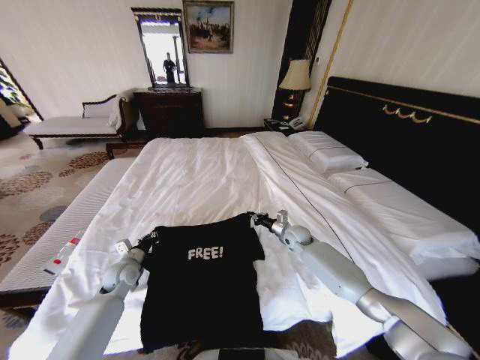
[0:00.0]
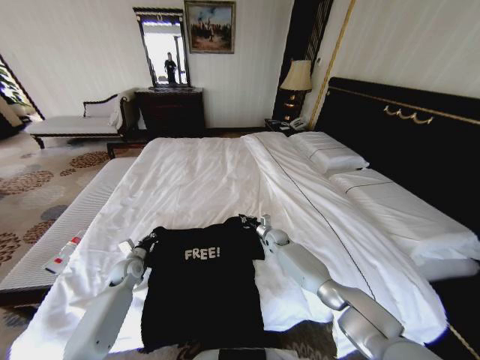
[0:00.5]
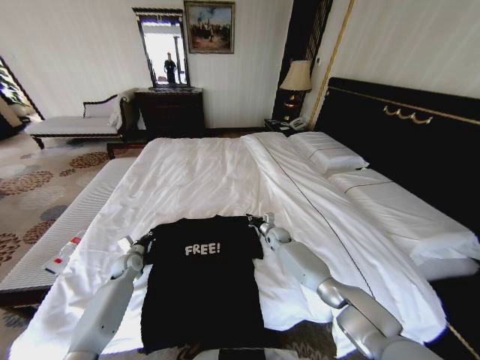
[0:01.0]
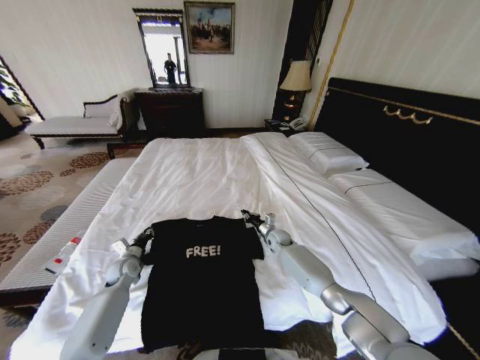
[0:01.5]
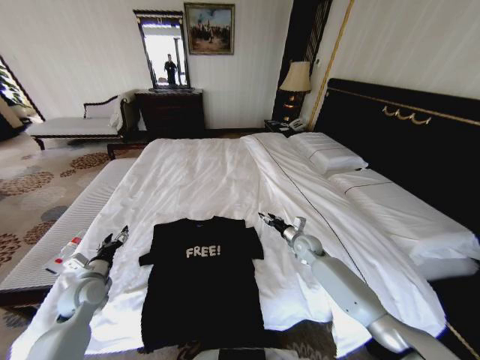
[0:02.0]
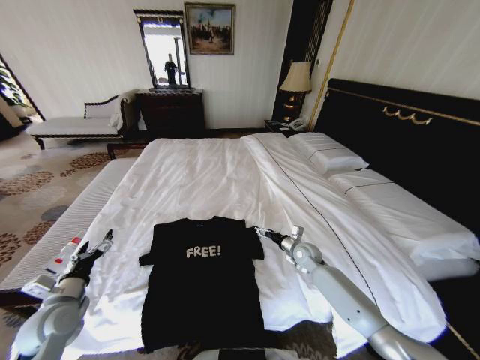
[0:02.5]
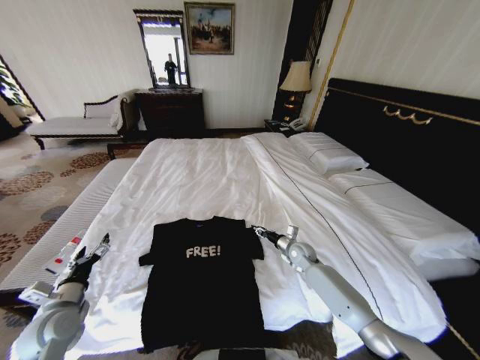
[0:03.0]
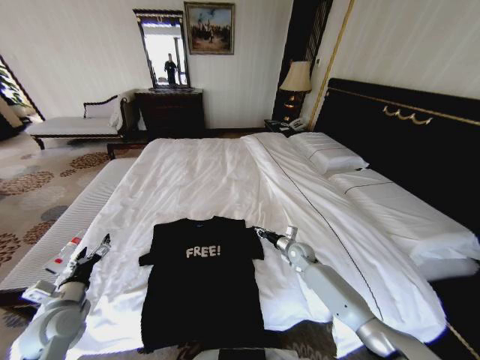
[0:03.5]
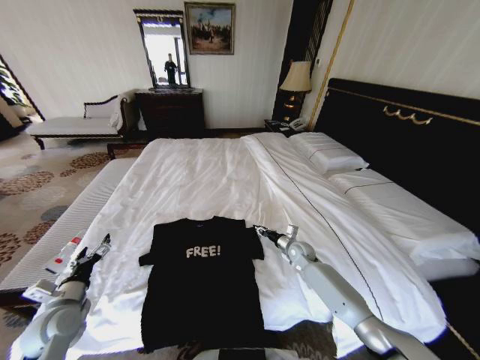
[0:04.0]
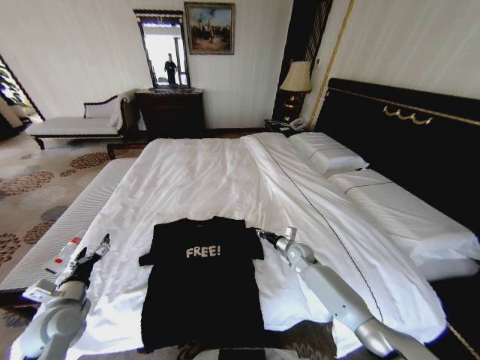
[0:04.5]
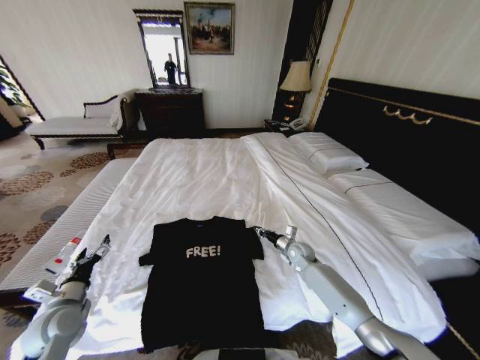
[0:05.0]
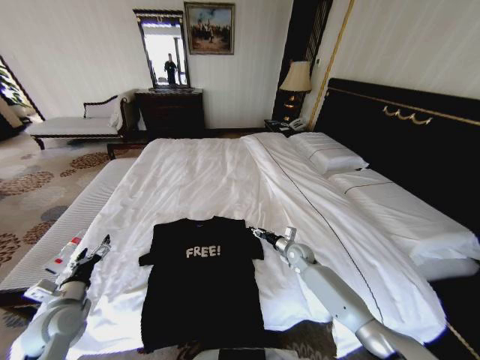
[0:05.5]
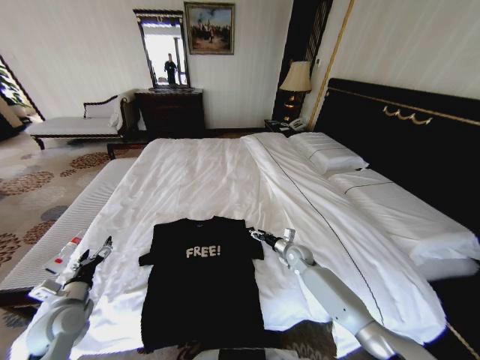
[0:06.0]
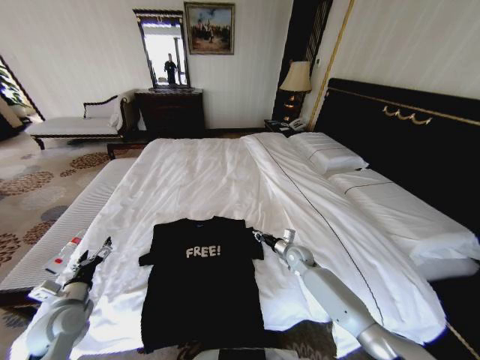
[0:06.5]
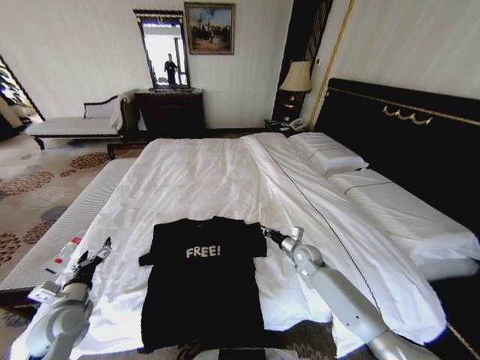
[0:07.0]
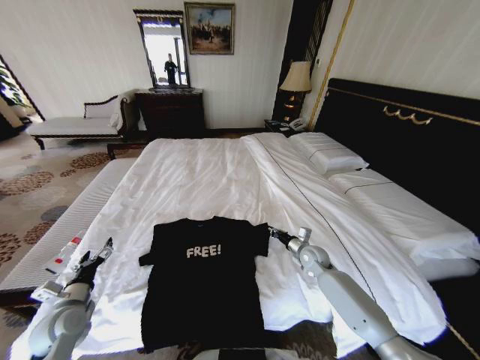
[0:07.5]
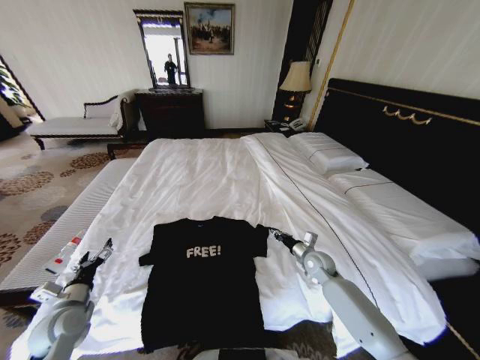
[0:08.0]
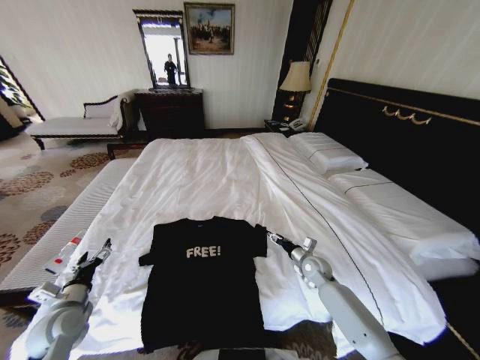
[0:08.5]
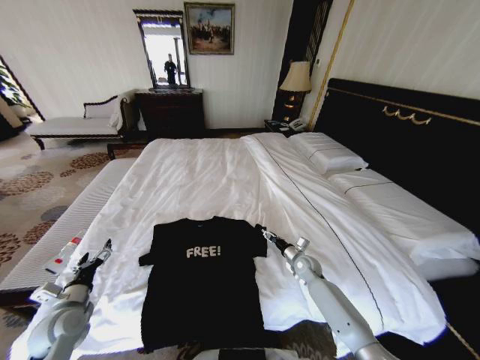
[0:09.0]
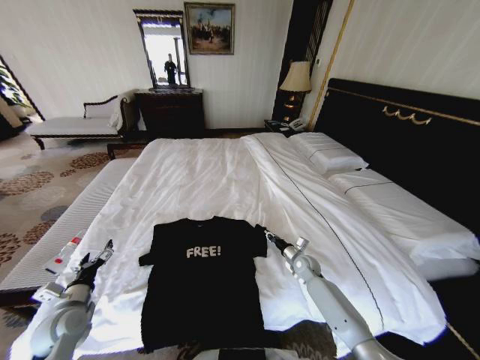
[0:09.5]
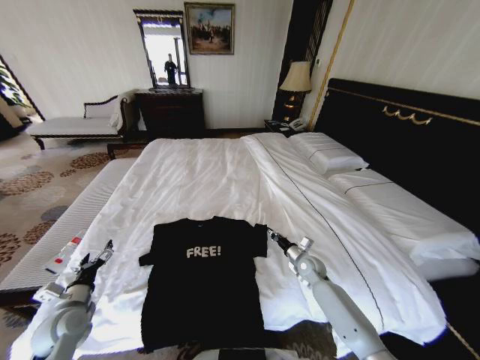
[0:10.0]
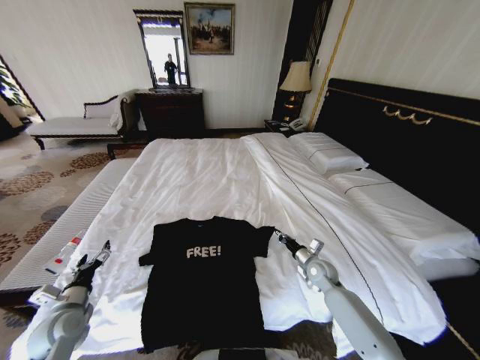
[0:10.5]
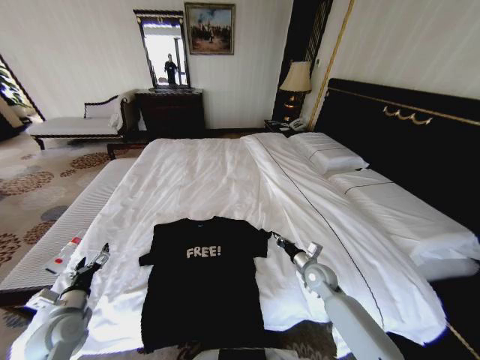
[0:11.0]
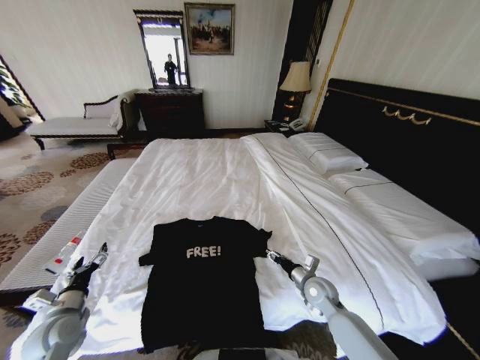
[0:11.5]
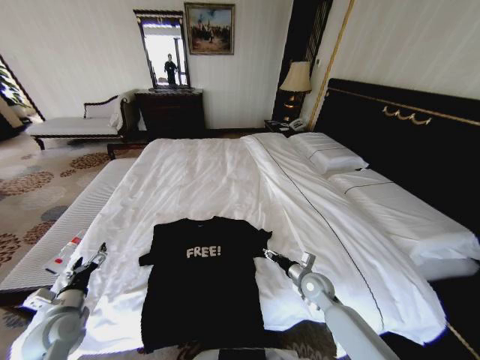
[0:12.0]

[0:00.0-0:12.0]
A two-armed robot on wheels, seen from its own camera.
Task of the whole recording: Fold the clothes on the bed.
0:00.0 to 0:02.0: The left gripper heads backward and to the left, covering about 10 cm, and opens; the right gripper travels to the left and back again, about 5 cm each way, and opens its fingers.
0:02.0 to 0:04.0: The left gripper goes roughly 5 cm backward. The right gripper opens and closes again.
0:04.0 to 0:06.0: The right gripper opens up.
0:06.0 to 0:08.0: The right gripper shifts by about 5 cm, and closes its fingers.
0:08.0 to 0:10.0: The right gripper opens and closes again.
0:10.0 to 0:12.0: The right gripper is displaced backward by approximately 10 cm, and opens up.

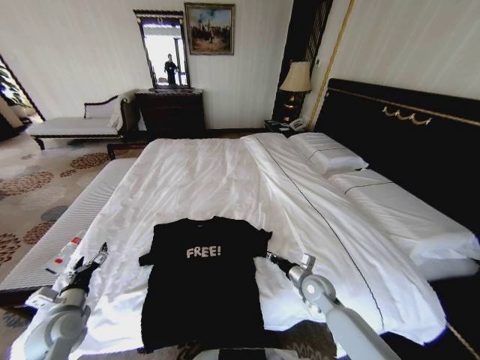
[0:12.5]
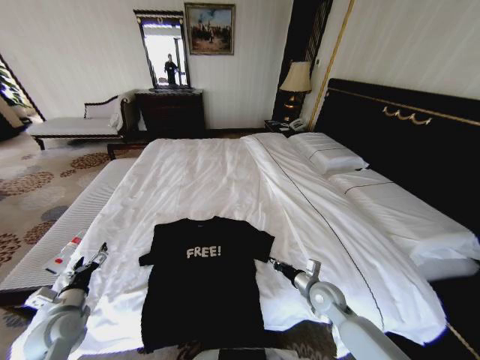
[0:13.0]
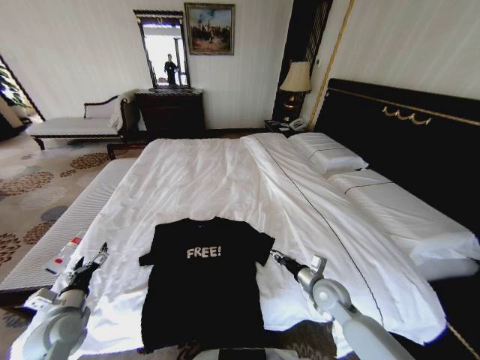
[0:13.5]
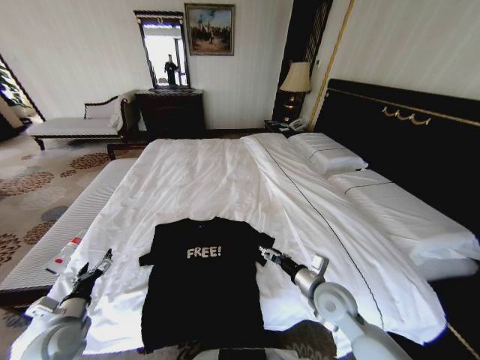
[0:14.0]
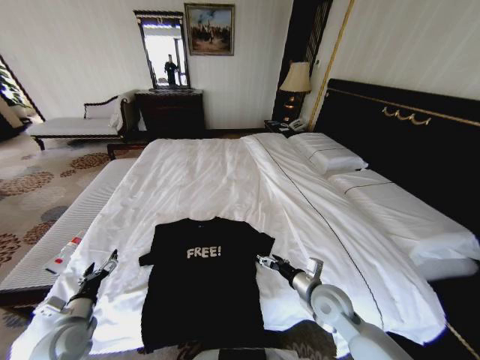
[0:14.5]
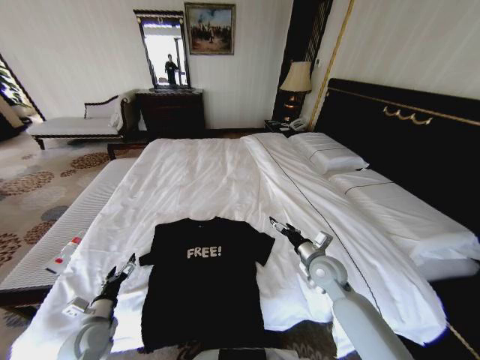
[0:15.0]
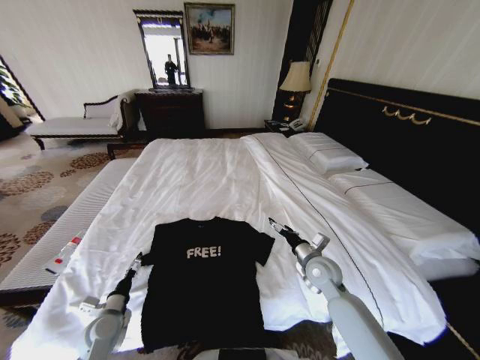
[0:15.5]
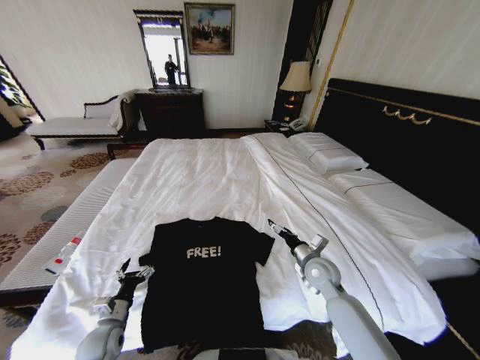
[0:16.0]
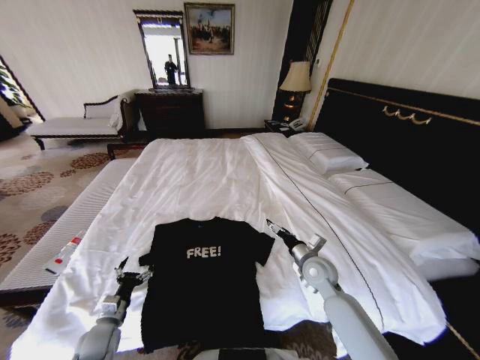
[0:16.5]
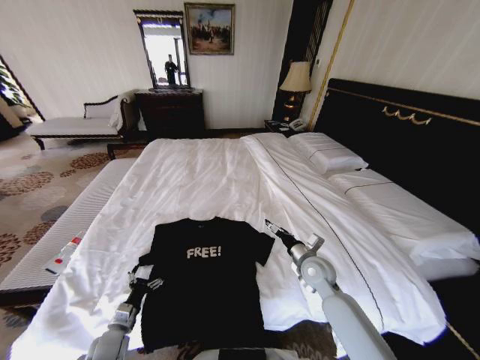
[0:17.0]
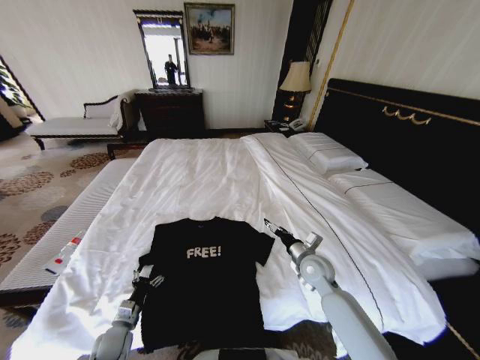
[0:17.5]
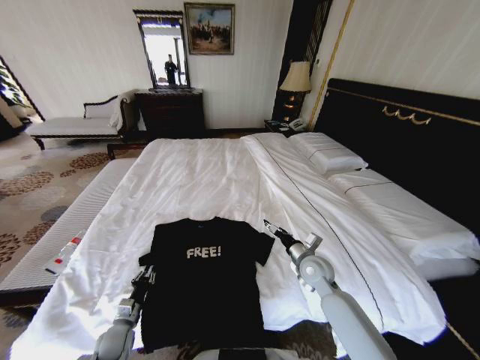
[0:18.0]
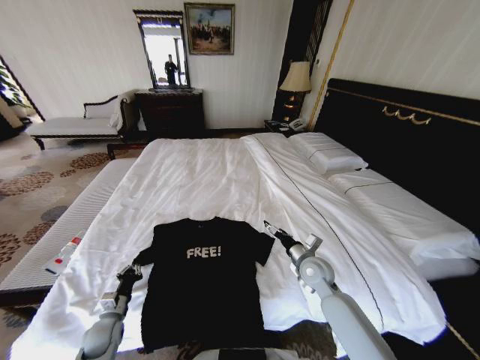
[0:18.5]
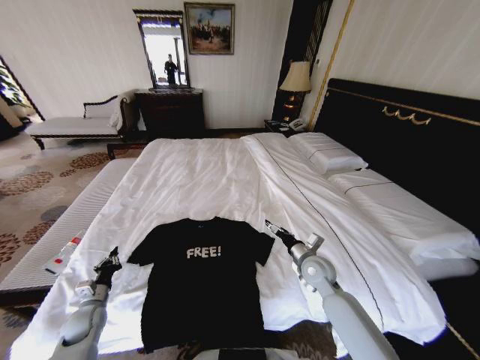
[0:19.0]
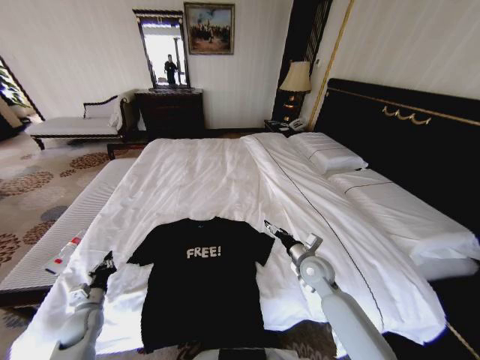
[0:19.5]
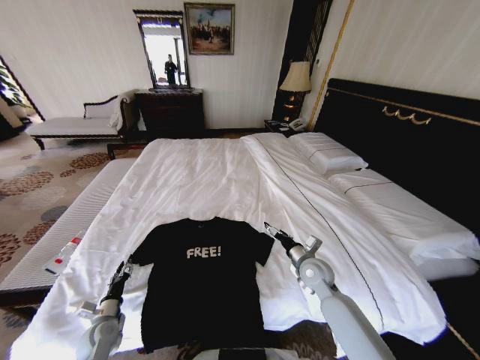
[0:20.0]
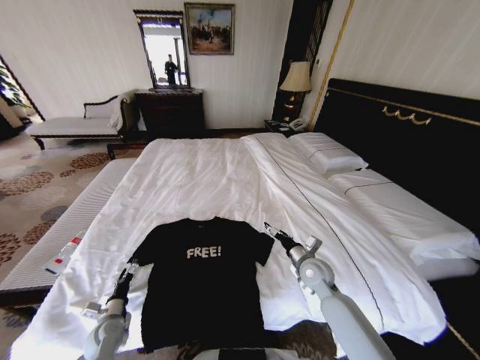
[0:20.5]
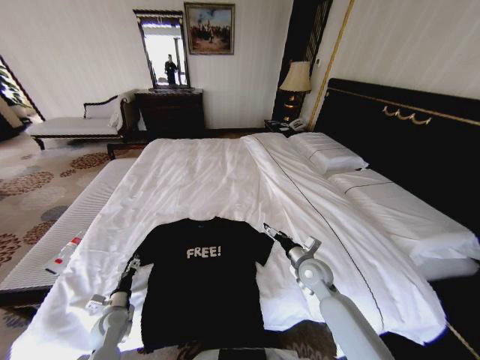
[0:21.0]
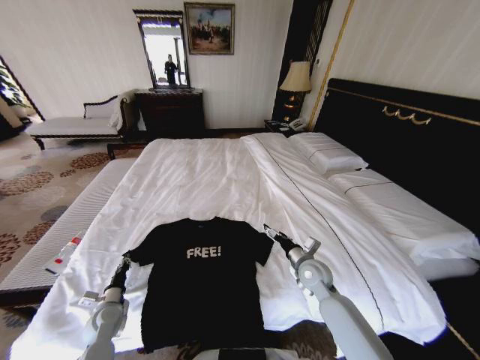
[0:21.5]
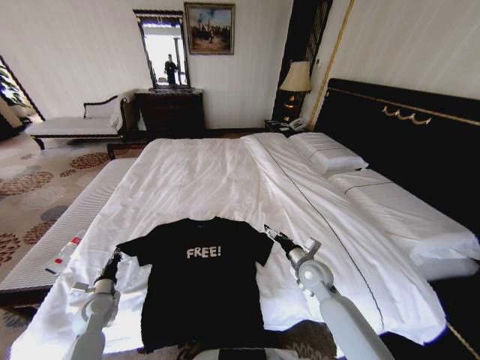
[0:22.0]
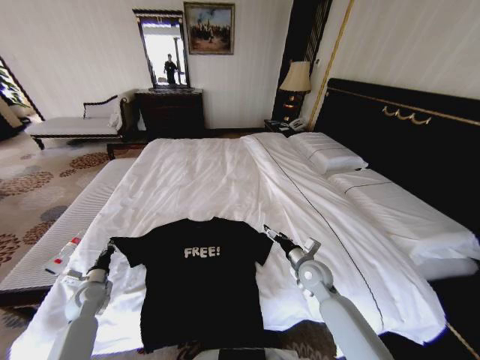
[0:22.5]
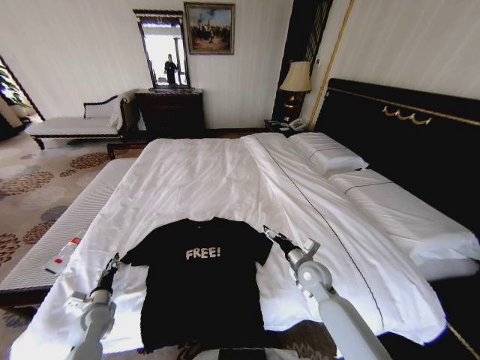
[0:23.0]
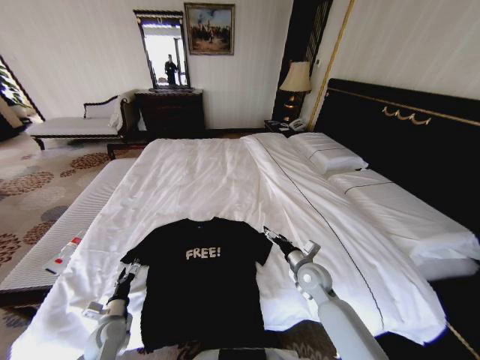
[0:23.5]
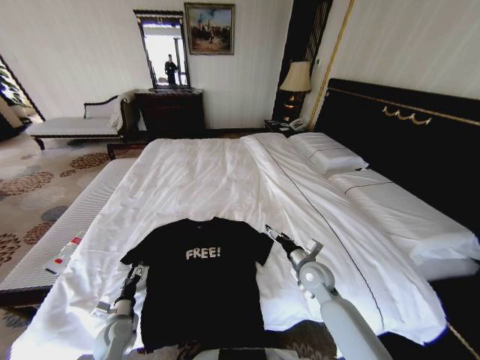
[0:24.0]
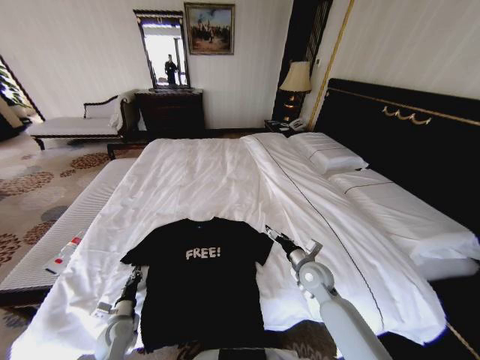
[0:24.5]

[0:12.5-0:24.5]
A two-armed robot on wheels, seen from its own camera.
Task of the whole recording: Fold the clothes on the bed.
0:12.5 to 0:14.5: The right gripper travels upward and backward by some 10 cm, and opens up.
0:14.5 to 0:16.5: The right gripper moves forward, some 10 cm; the left gripper travels downward by about 10 cm.
0:16.5 to 0:18.5: The left gripper closes its fingers.
0:18.5 to 0:20.5: The left gripper opens.
0:20.5 to 0:22.5: The left gripper travels forward and to the left by some 10 cm, and closes its fingers.
0:22.5 to 0:24.5: The left gripper goes roughly 15 cm to the right, backward and downward, and opens, then closes once more.

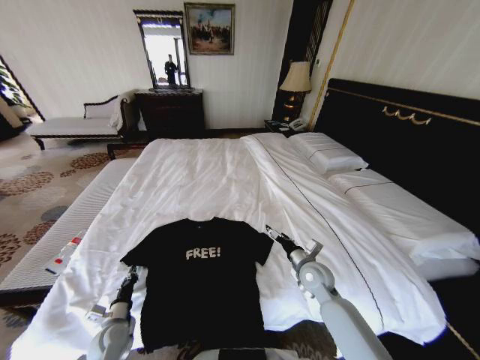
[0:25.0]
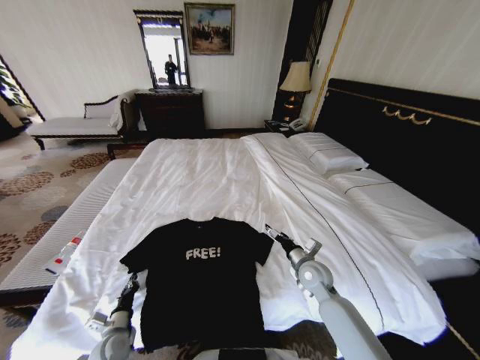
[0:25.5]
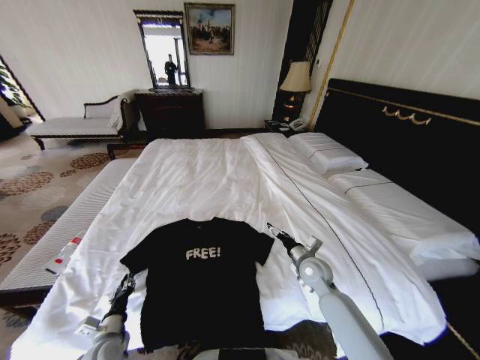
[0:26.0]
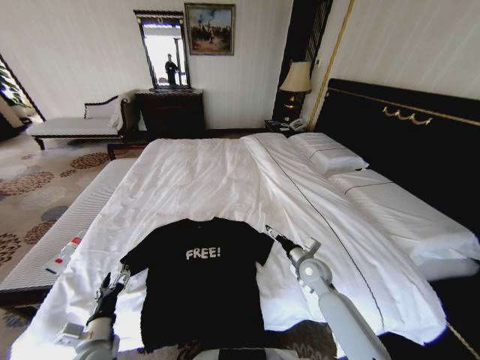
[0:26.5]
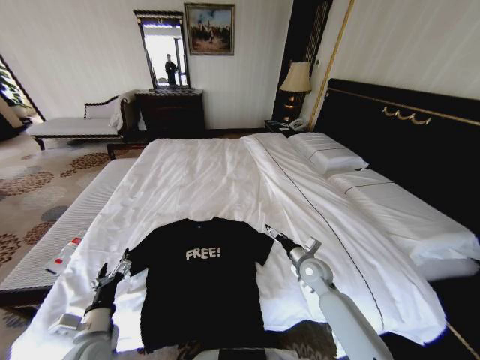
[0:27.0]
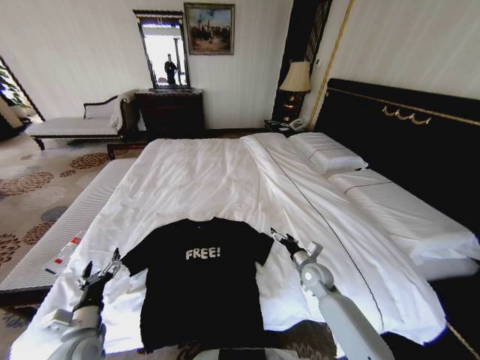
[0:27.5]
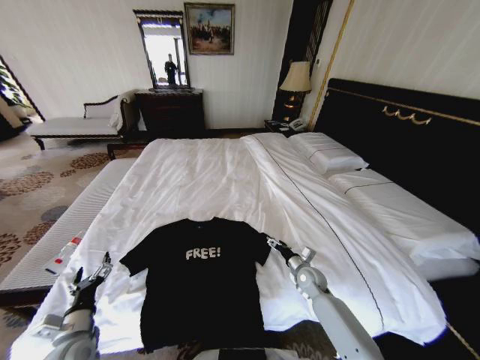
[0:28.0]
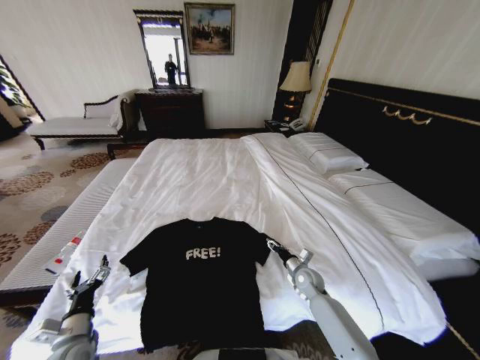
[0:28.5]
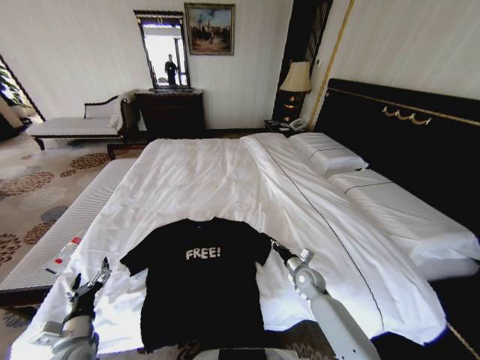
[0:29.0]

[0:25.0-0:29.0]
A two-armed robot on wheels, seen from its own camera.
Task of the whole recording: Fold the clothes on the bed.
0:25.0 to 0:27.0: The left gripper is displaced upward by roughly 10 cm, and opens.
0:27.0 to 0:29.0: The left gripper is displaced to the left by approximately 5 cm, while the right gripper is displaced downward by some 10 cm, and closes its fingers.
